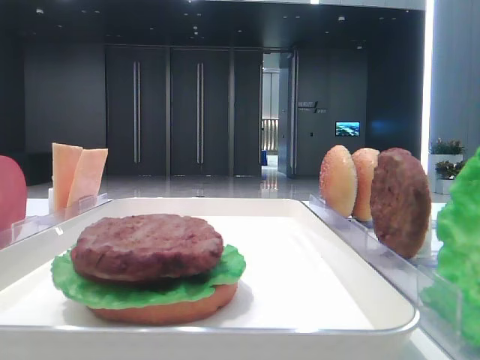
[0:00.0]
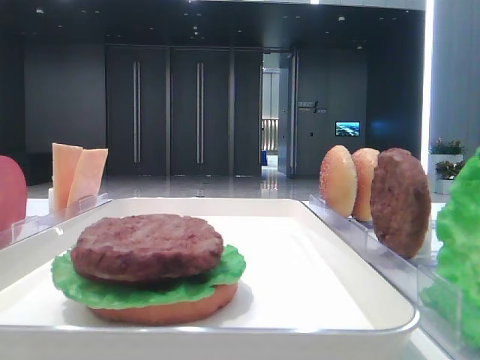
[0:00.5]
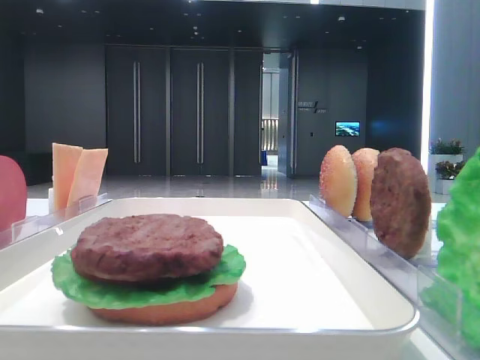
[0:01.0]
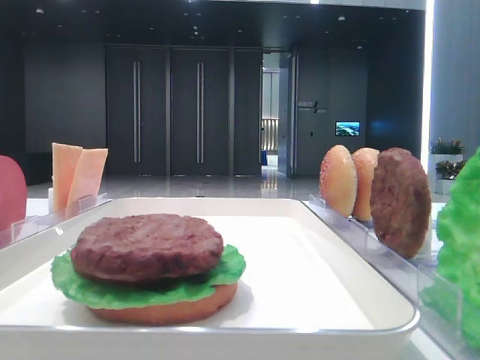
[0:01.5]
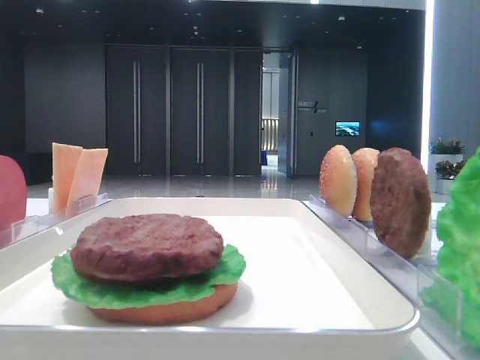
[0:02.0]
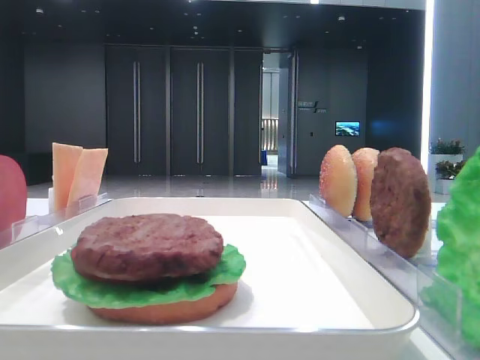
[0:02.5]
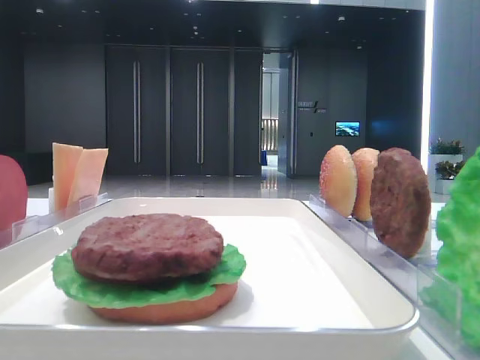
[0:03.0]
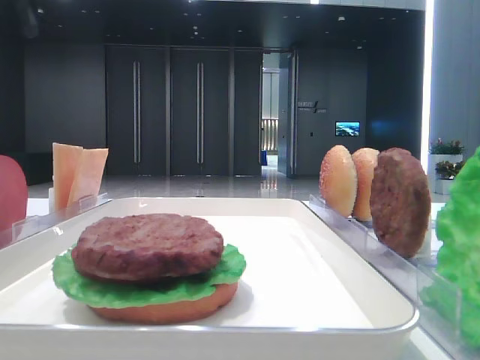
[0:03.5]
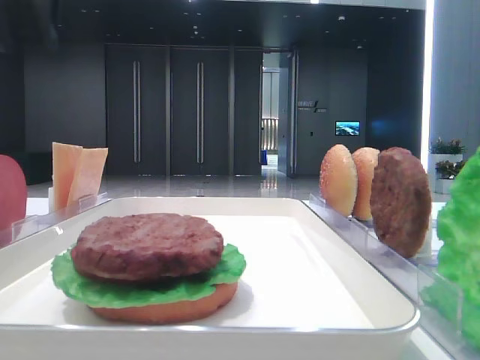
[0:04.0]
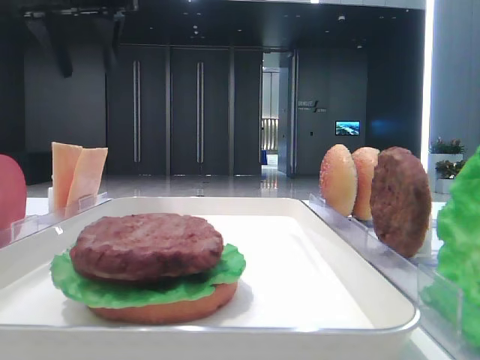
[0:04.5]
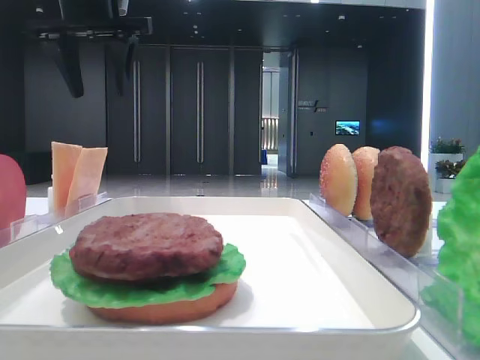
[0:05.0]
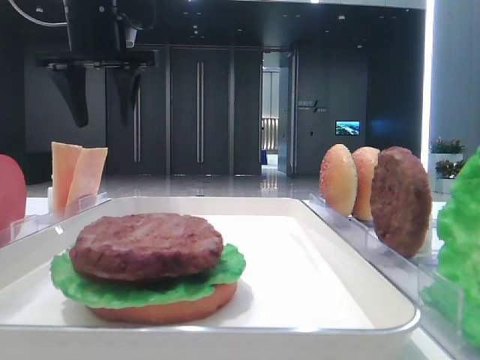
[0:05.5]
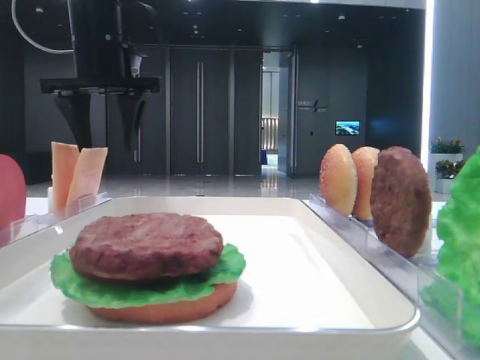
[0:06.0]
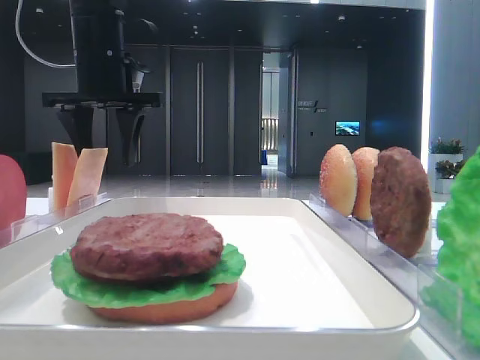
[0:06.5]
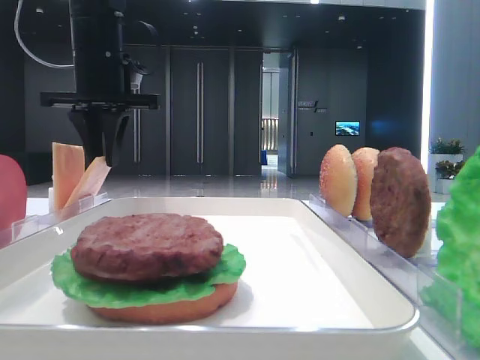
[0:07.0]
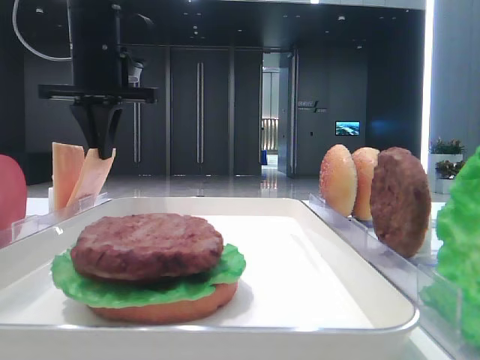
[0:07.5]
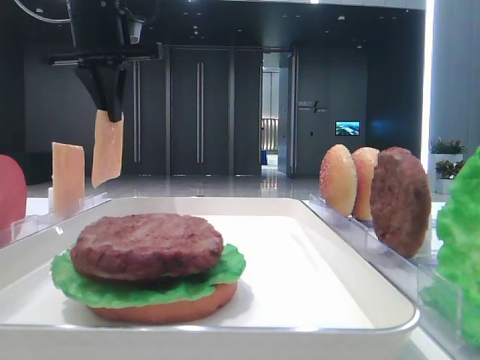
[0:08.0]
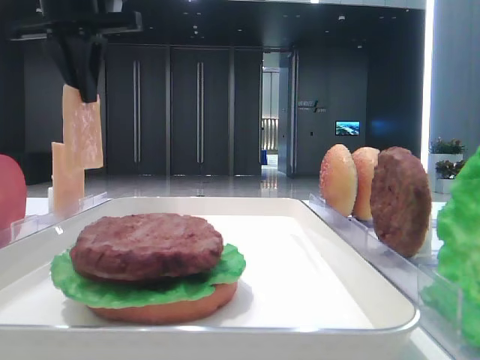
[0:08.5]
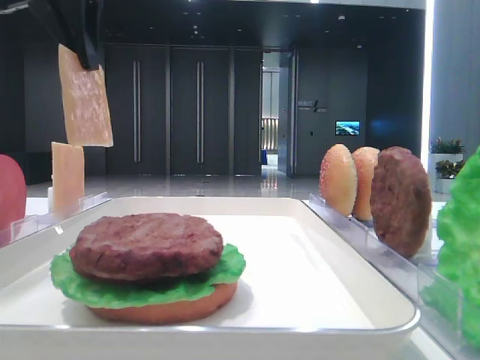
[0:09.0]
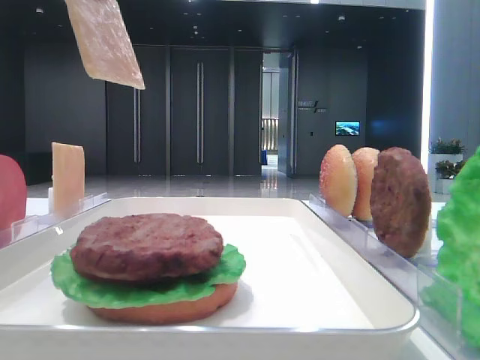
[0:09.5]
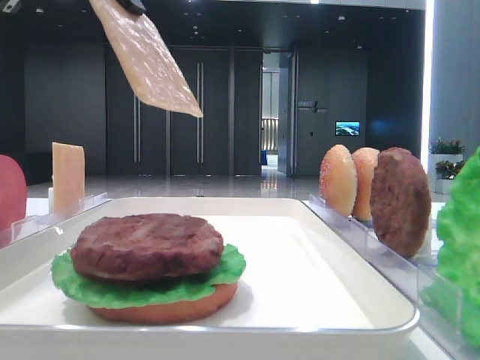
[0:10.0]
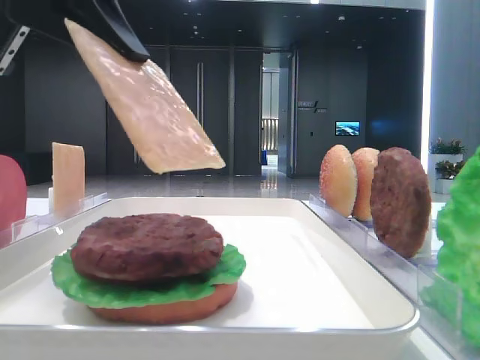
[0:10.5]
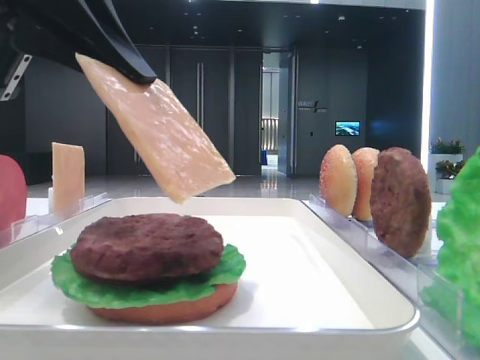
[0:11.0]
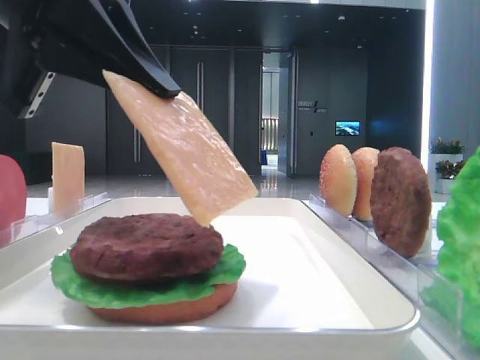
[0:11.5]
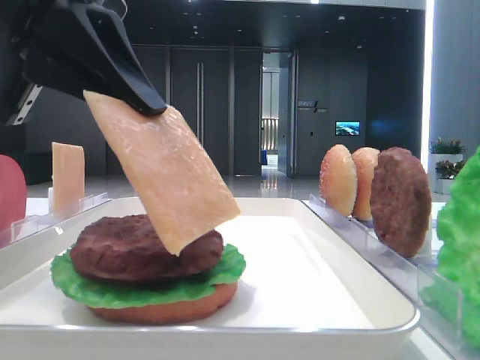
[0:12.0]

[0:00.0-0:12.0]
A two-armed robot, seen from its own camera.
Step, 0:00.0 to 0:07.5: Pick up the cheese slice with the left hand.
0:04.0 to 0:06.0: The left gripper moves downward and to the right, roughly 15 cm.
0:06.0 to 0:08.0: The left gripper closes up.
0:08.0 to 0:10.0: The left gripper heads backward, covering roughly 15 cm.
0:10.0 to 0:12.0: The left gripper goes some 10 cm downward.

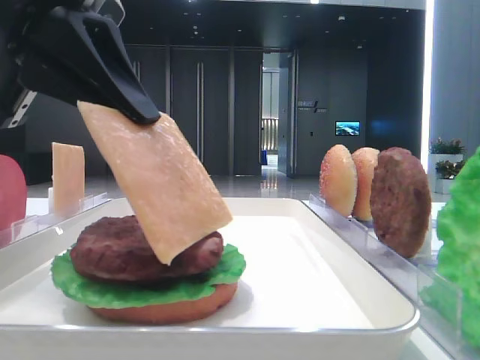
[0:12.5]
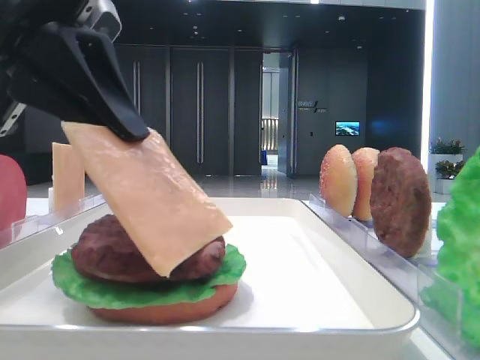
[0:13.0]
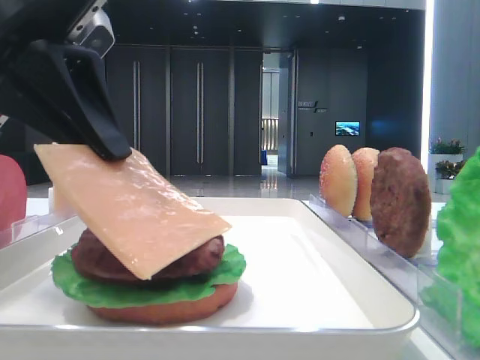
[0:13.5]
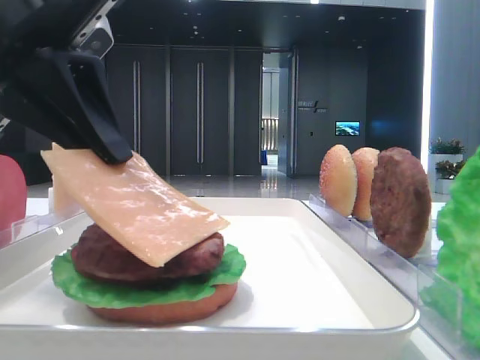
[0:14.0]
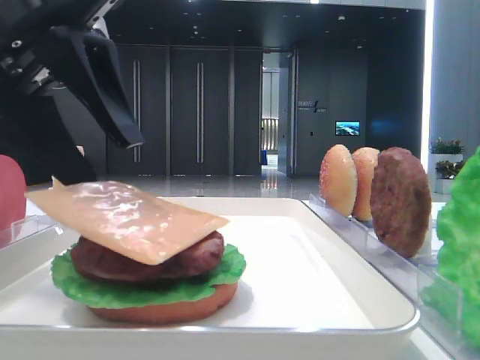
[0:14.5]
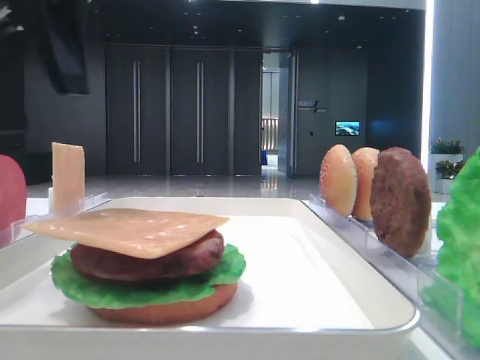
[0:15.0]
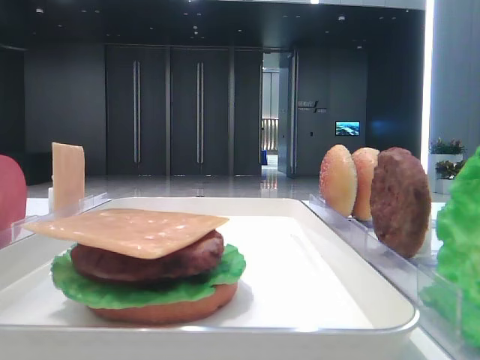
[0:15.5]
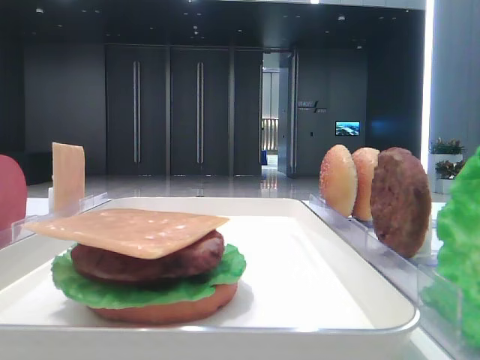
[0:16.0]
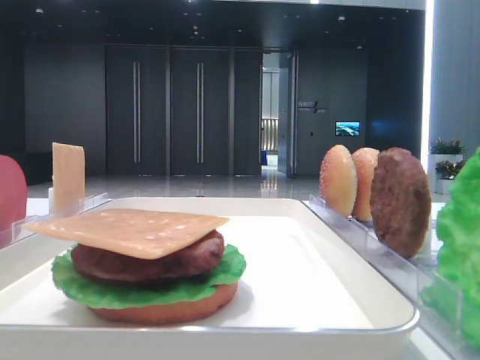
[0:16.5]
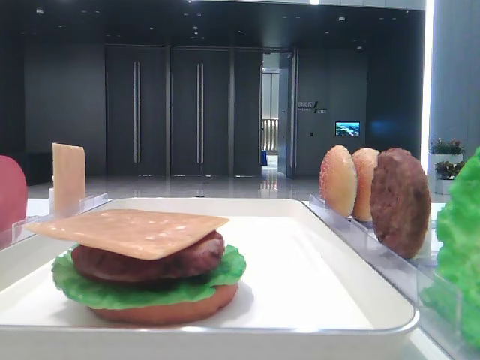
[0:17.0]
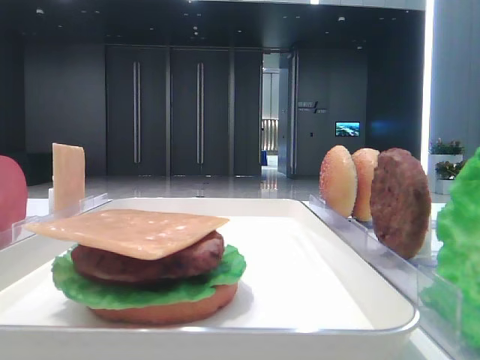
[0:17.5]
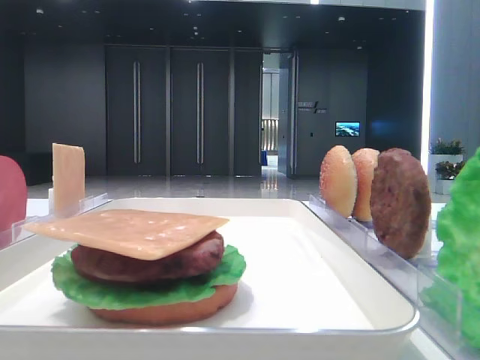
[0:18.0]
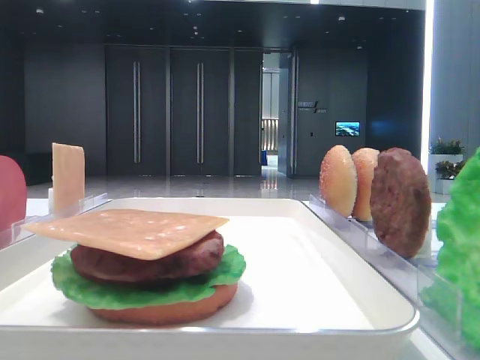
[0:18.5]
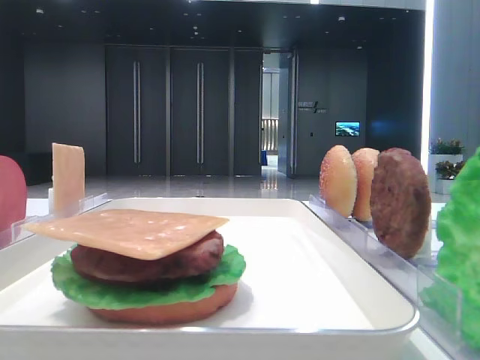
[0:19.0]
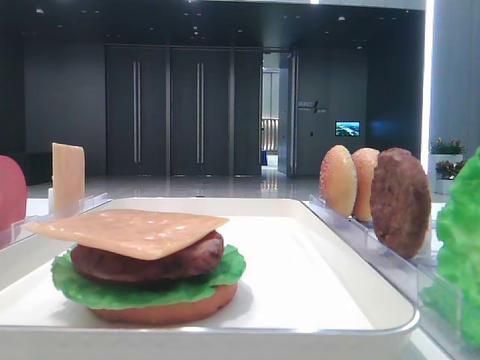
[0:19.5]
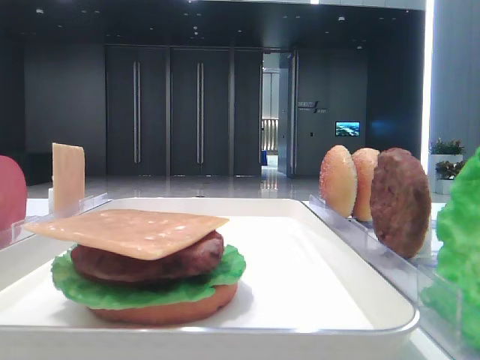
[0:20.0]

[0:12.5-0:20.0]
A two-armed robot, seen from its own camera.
Step, 0:12.5 to 0:14.5: Place the cheese slice on the patty with the left hand.
0:12.5 to 0:14.5: The left gripper opens.
0:14.5 to 0:16.5: The left gripper travels to the left and upward by roughly 25 cm.

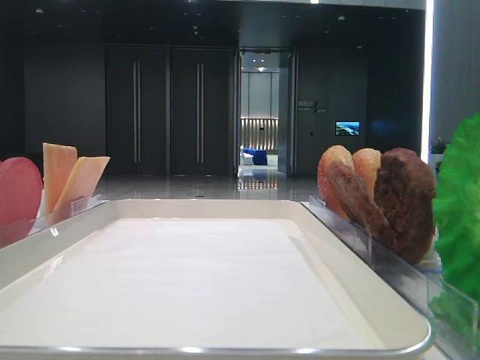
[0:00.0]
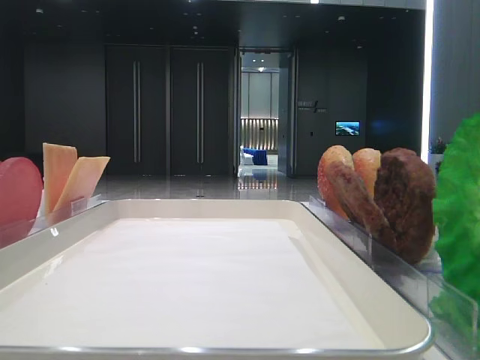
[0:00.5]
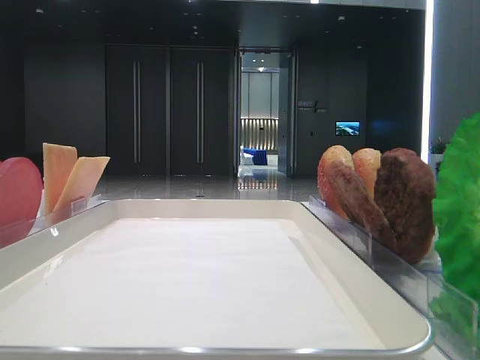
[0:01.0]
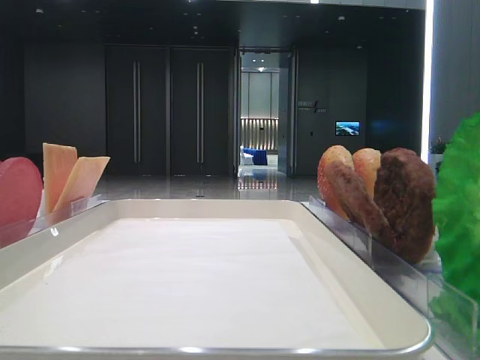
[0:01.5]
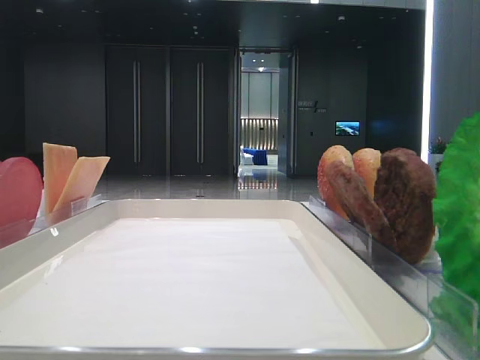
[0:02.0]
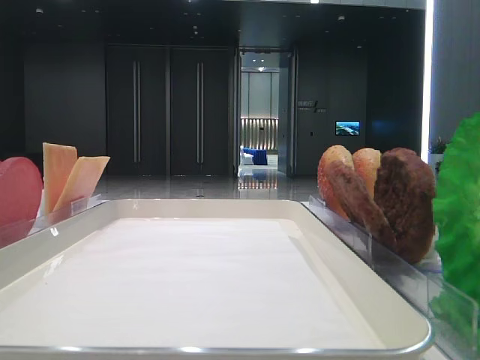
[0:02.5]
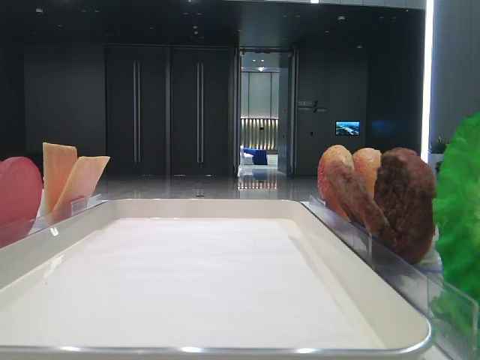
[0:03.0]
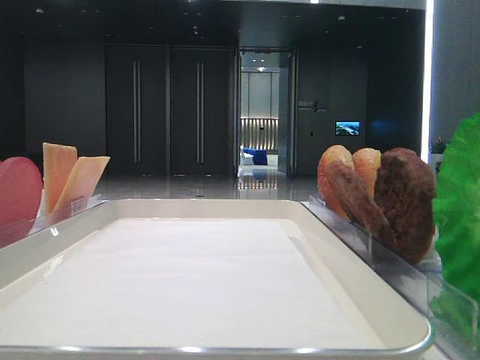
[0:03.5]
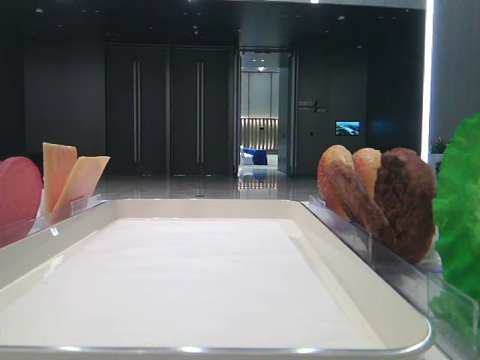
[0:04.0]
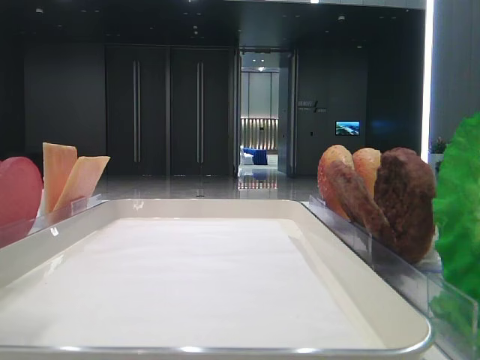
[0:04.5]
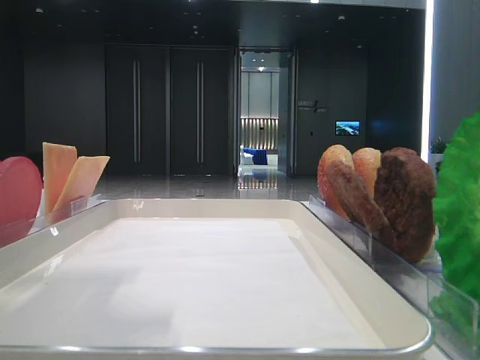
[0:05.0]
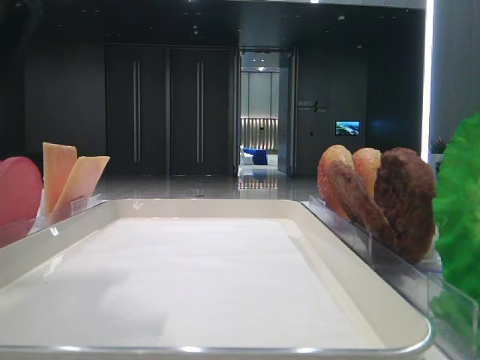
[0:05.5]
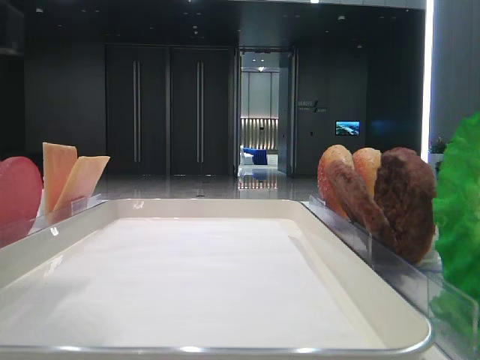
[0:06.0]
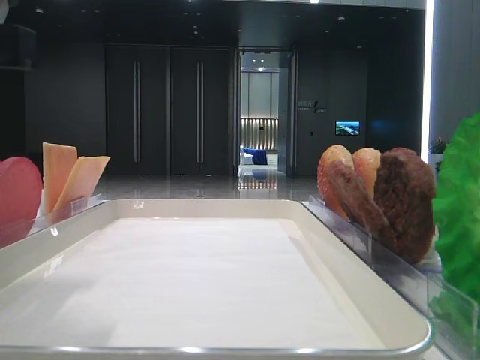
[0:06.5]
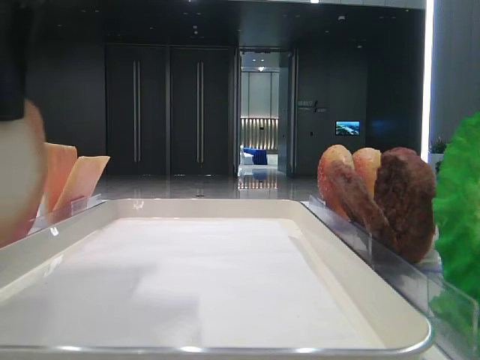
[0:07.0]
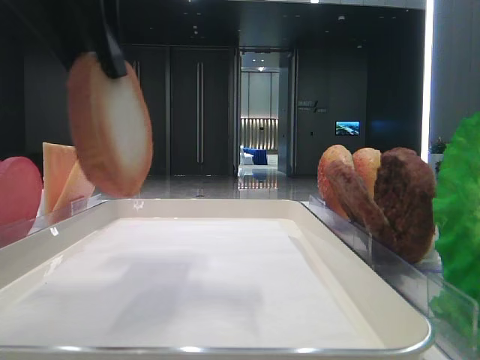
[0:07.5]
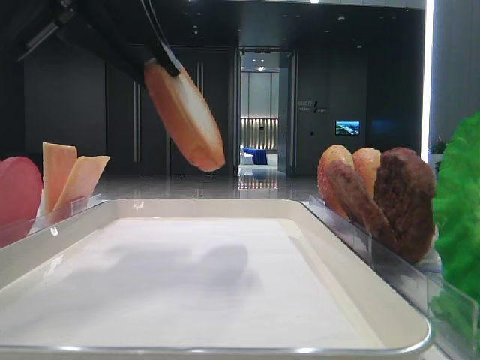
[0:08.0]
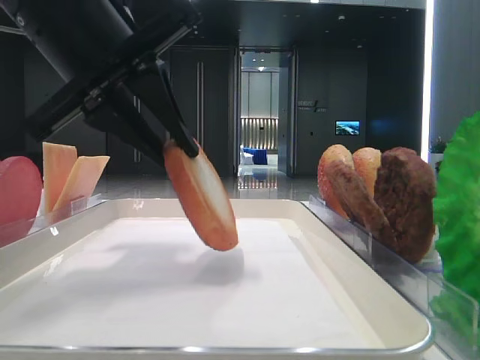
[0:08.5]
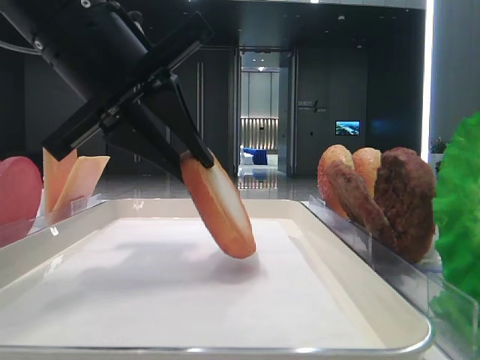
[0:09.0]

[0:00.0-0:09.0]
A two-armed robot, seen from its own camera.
Step, 0:00.0 to 0:06.0: Pick up the bottom bread with the left hand.
0:04.5 to 0:07.0: The left gripper goes about 10 cm to the right, and closes its fingers.
0:07.0 to 0:09.0: The left gripper moves forward and downward, approximately 10 cm.
